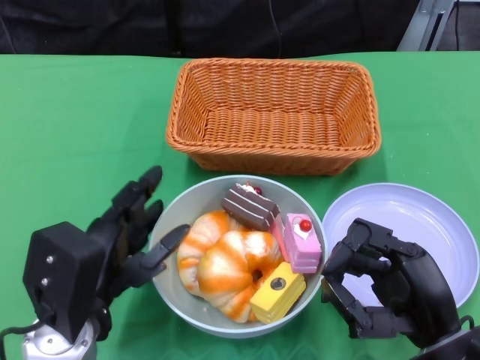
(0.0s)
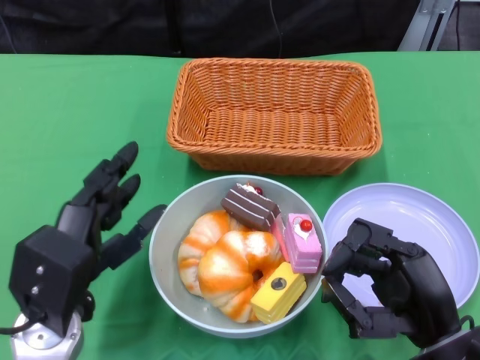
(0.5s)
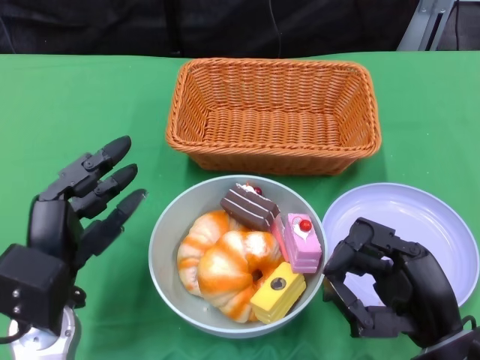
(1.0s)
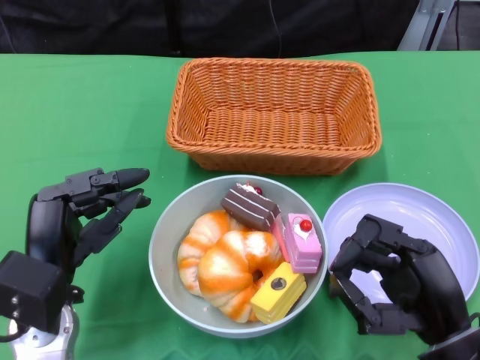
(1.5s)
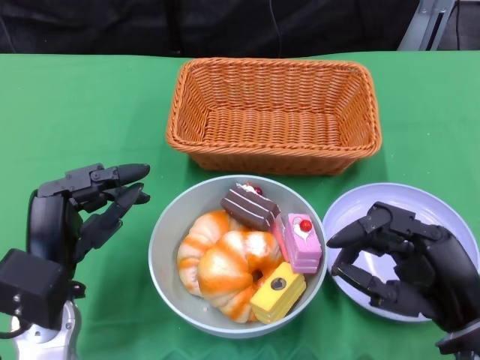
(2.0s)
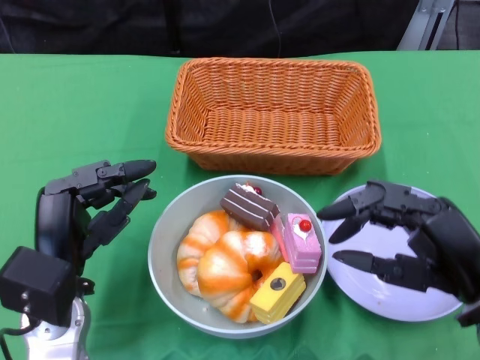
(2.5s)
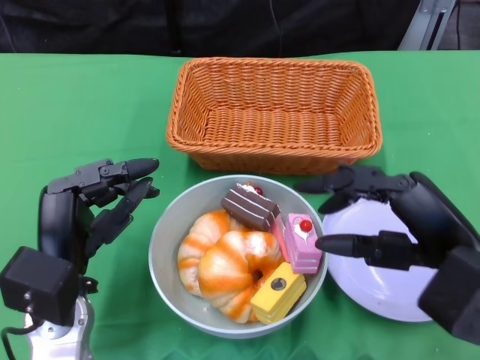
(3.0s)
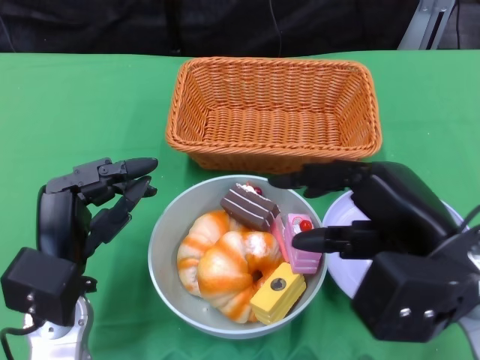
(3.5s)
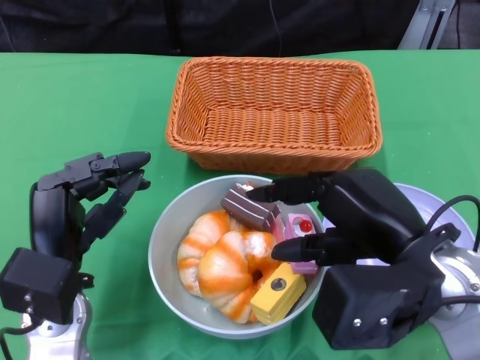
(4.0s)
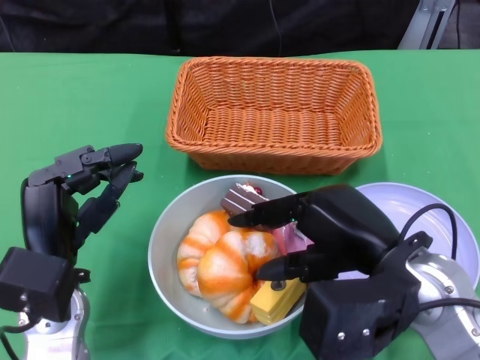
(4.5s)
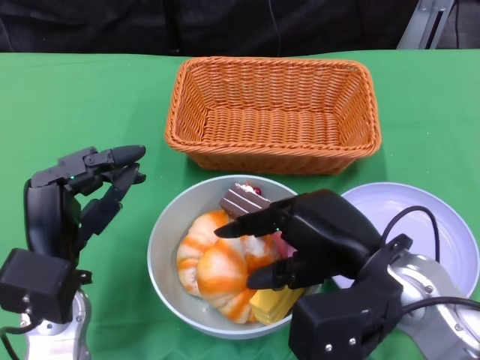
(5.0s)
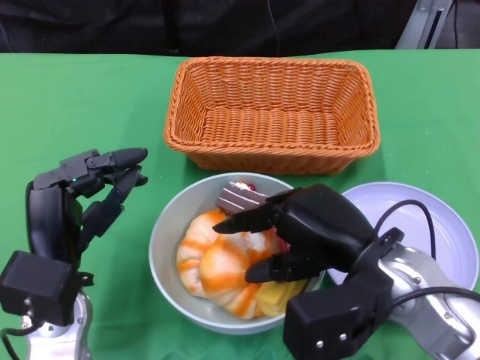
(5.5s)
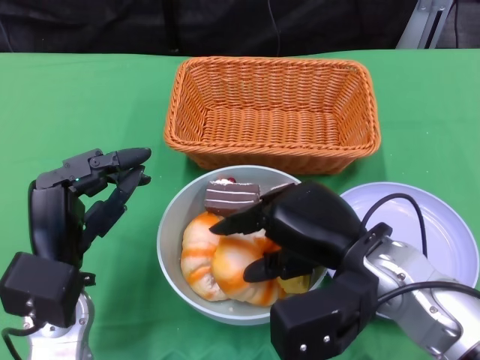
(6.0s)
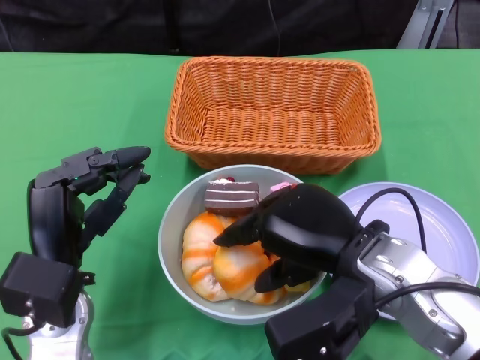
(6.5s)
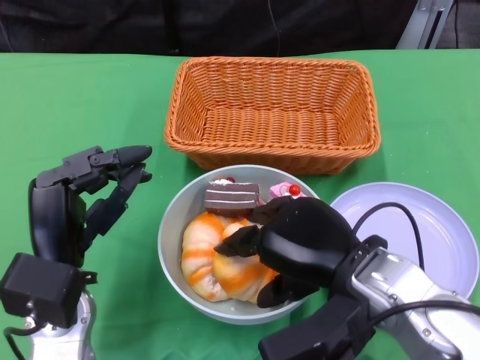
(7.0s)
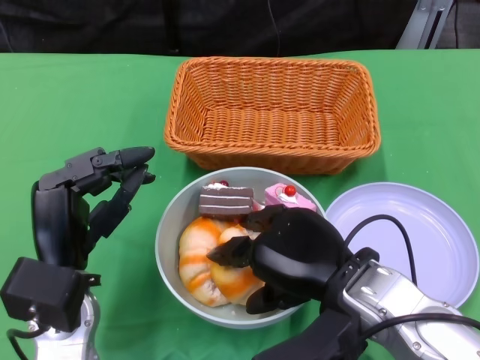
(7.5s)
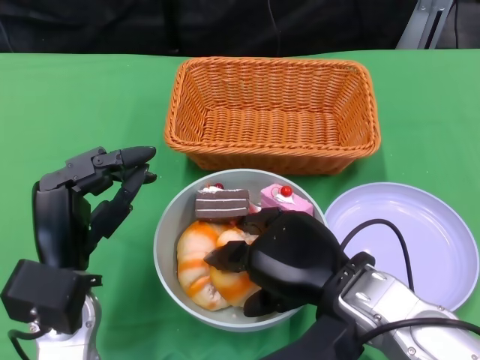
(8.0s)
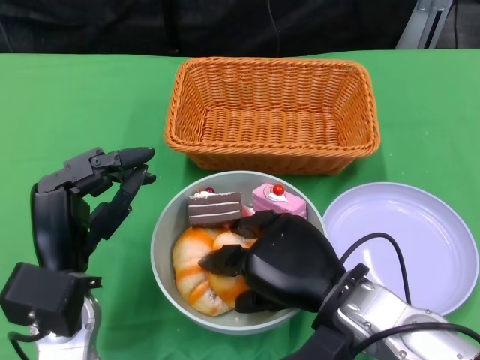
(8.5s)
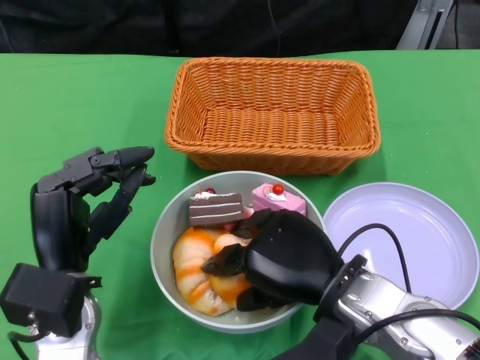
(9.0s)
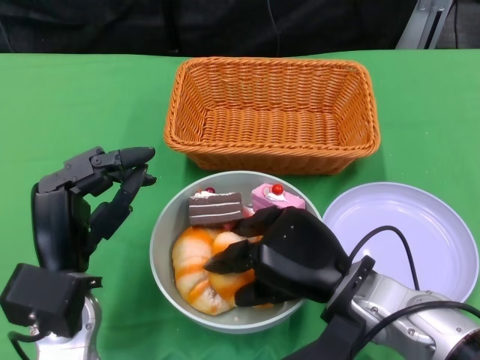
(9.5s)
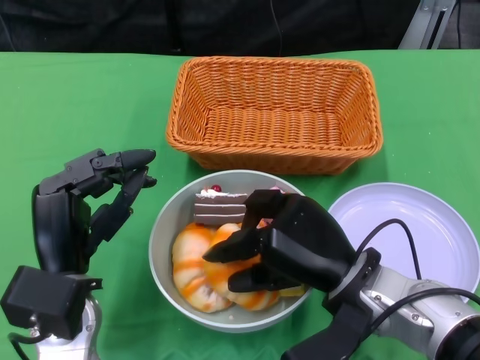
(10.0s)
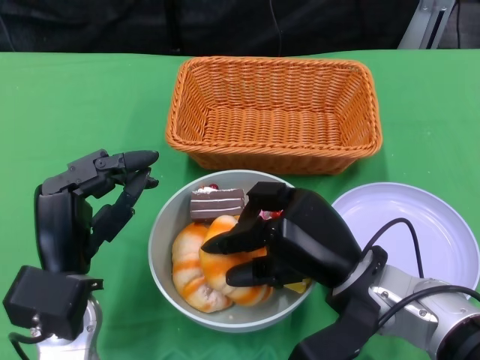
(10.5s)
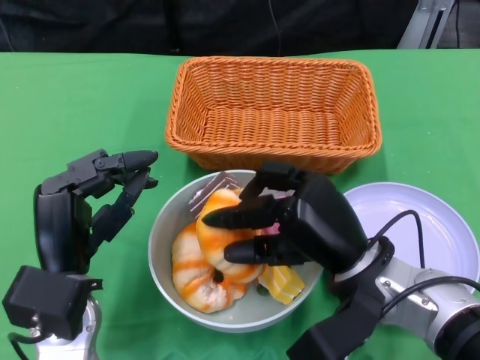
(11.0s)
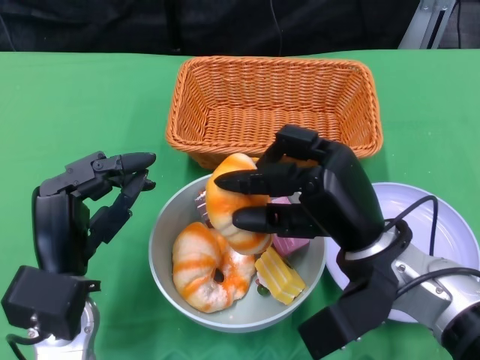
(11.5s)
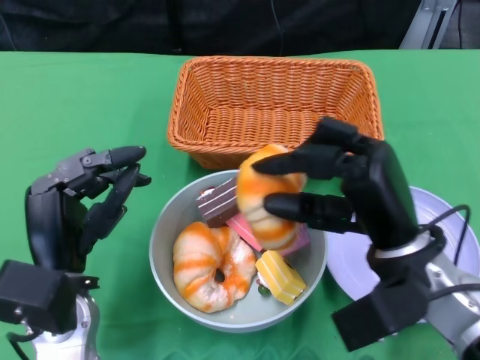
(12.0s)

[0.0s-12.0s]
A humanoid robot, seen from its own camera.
2.0s to 4.0s: The right hand heads upward, covering about 10 cm.
4.0s to 6.0s: The right hand ends up approximately 5 cm from where it was.

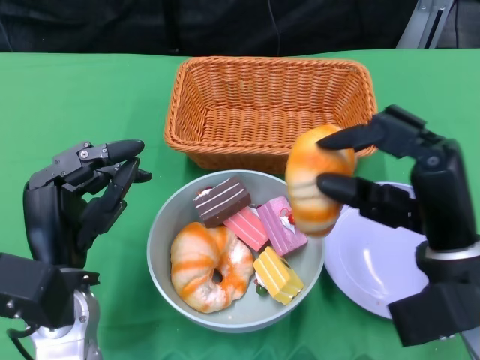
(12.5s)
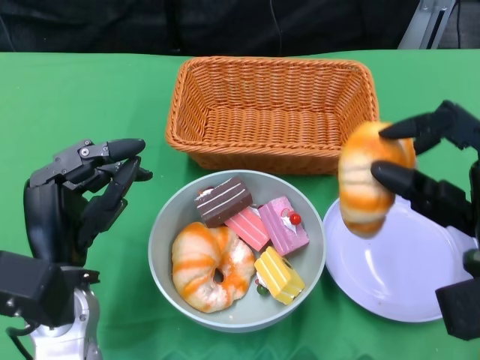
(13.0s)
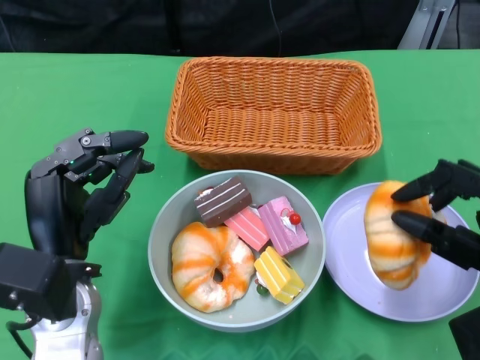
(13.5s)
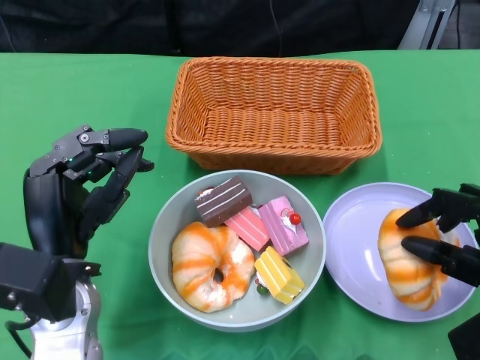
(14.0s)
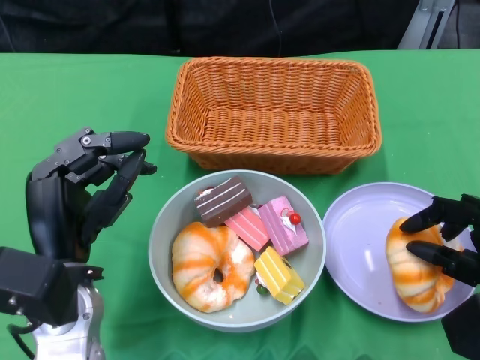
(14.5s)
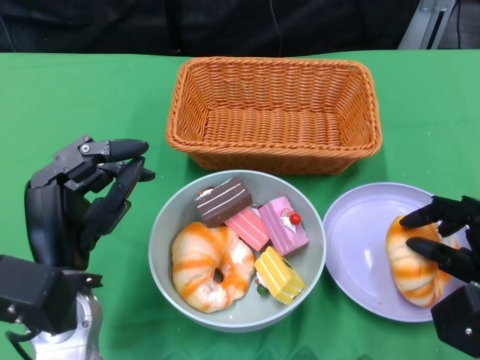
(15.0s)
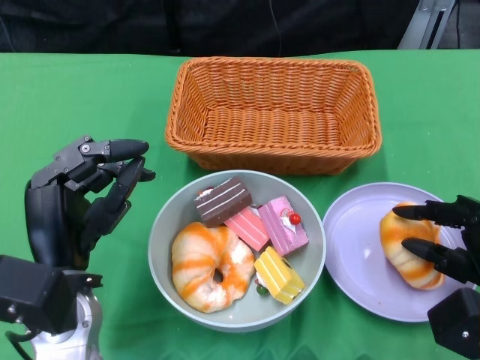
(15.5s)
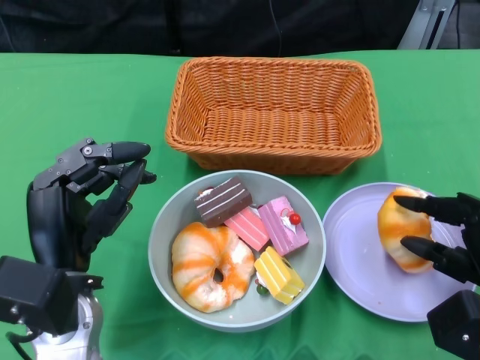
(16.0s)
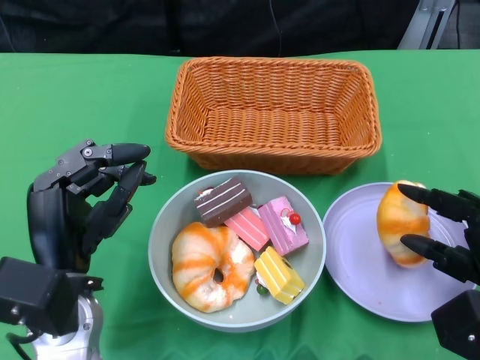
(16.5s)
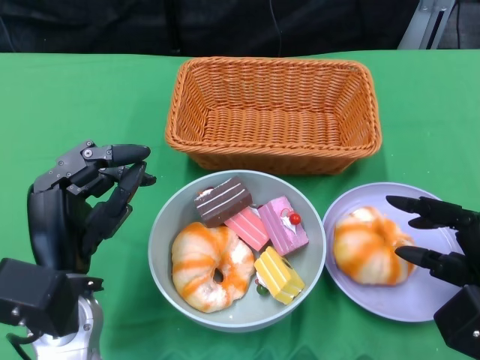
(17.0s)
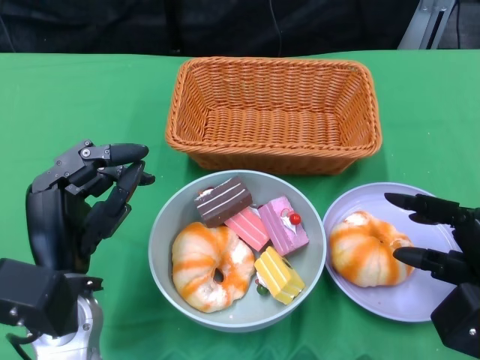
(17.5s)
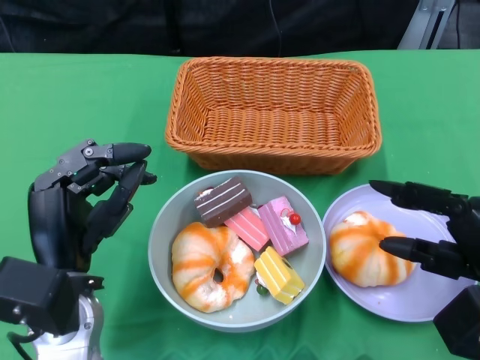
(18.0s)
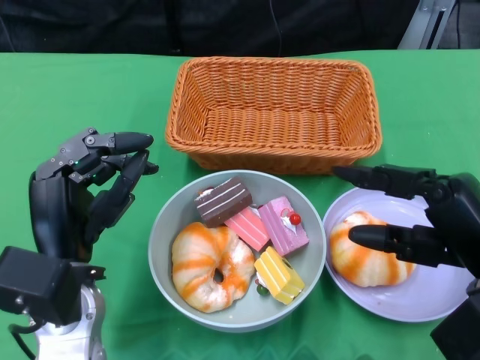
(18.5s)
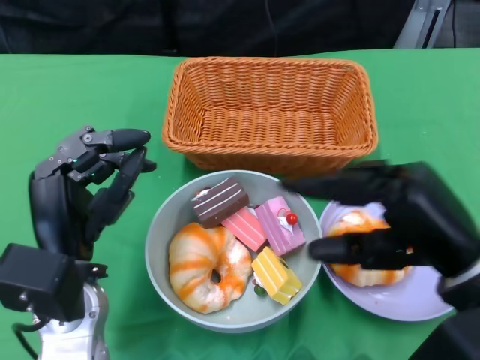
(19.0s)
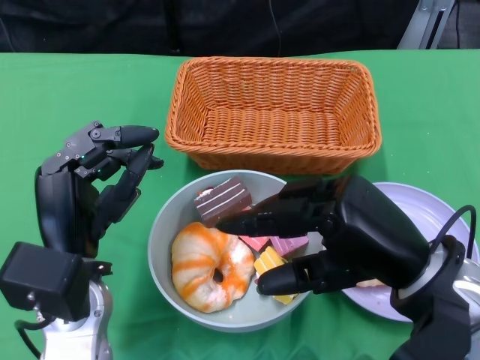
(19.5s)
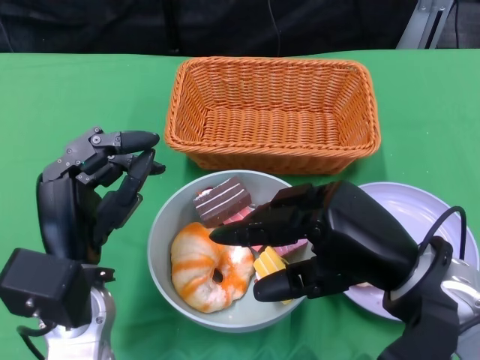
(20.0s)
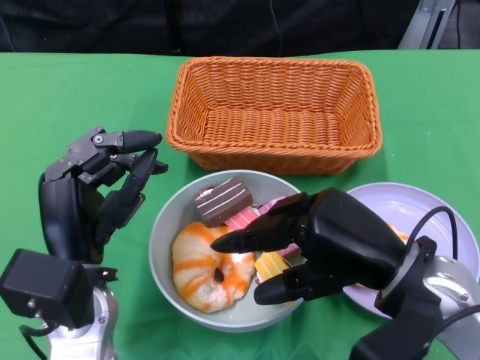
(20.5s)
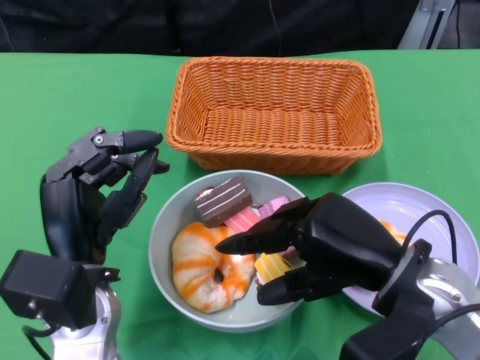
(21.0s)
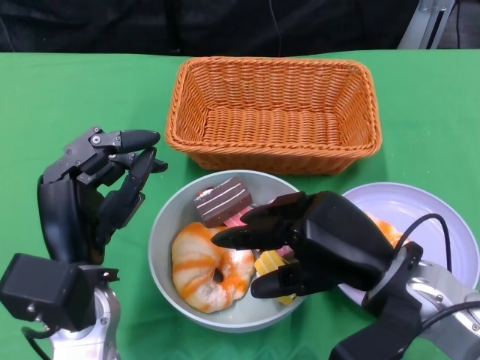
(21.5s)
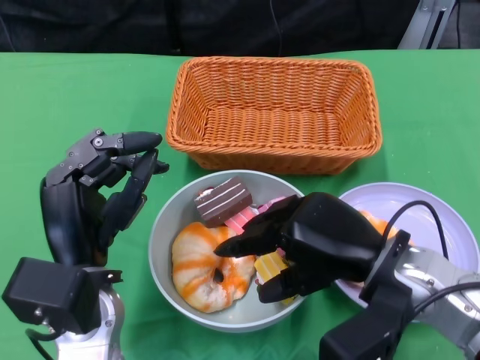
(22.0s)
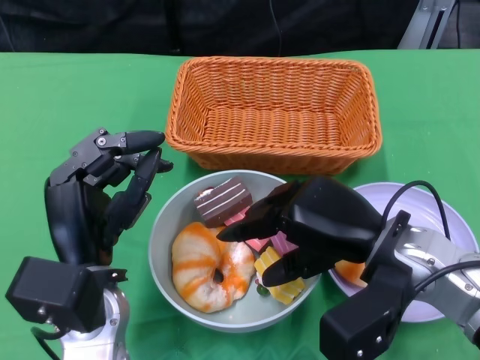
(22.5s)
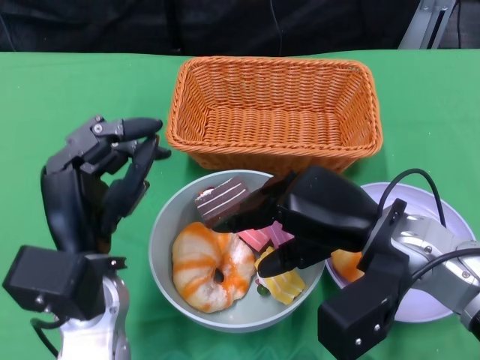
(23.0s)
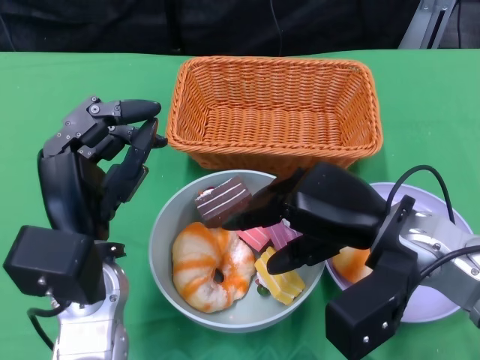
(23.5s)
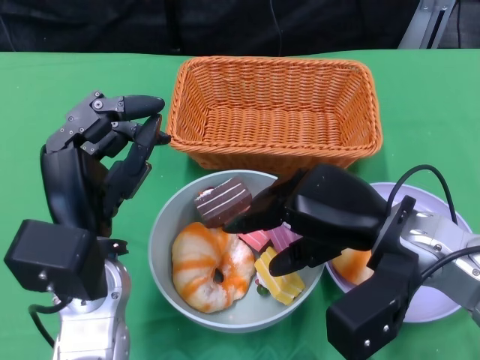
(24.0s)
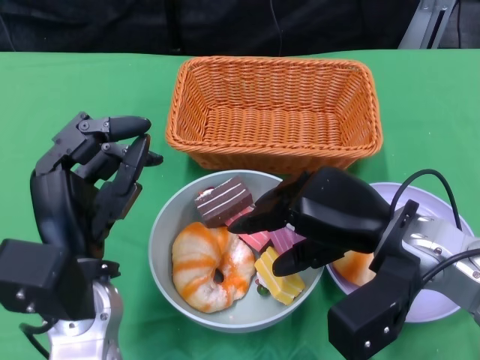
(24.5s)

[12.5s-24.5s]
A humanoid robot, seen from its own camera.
12.5s to 14.5s: The right hand moves to the right and downward, about 10 cm.
14.5s to 16.5s: The hands make only small movements.
16.5s to 18.5s: The right hand shifts some 5 cm upward.
18.5s to 20.5s: The right hand travels to the left by about 10 cm.
22.5s to 24.5s: The hands stay close to where they were, moving slightly.

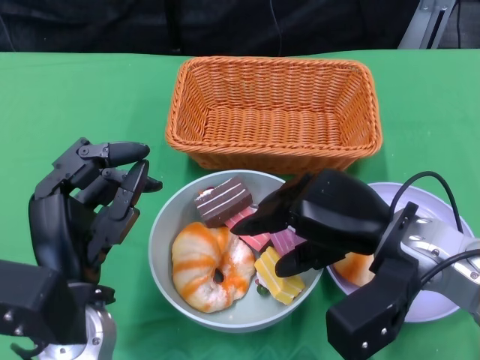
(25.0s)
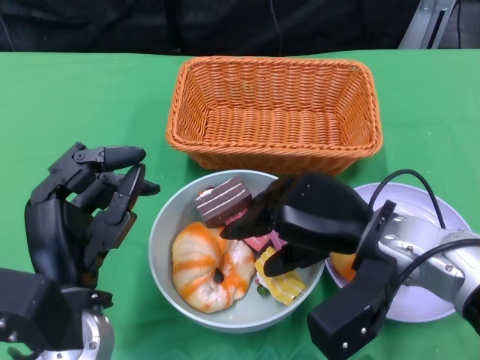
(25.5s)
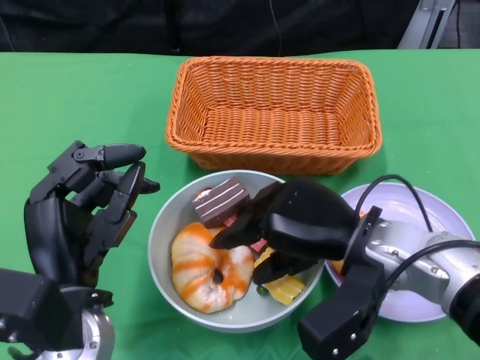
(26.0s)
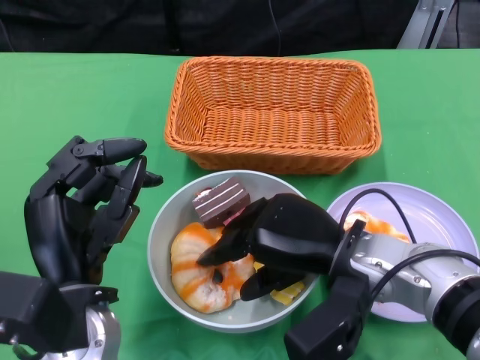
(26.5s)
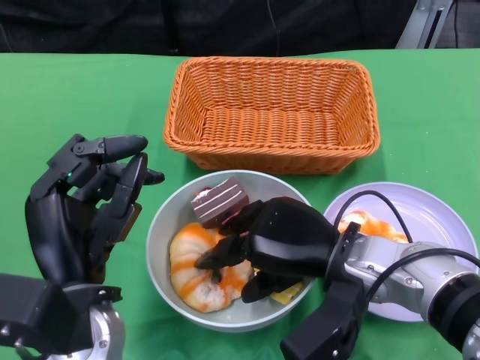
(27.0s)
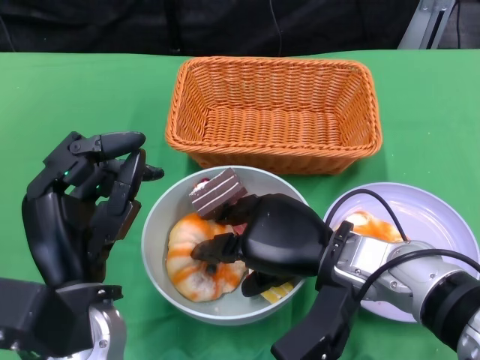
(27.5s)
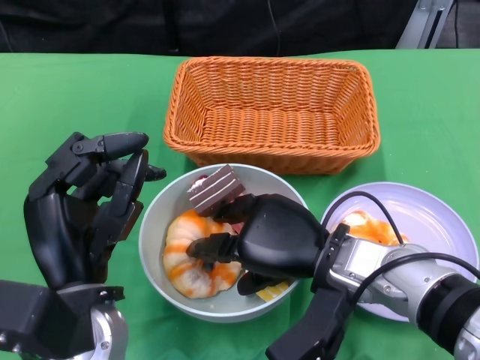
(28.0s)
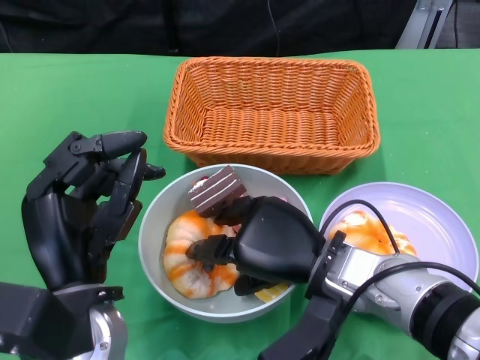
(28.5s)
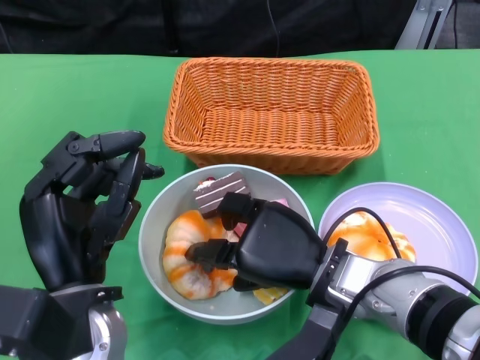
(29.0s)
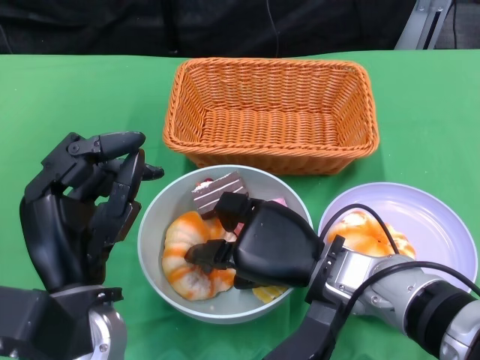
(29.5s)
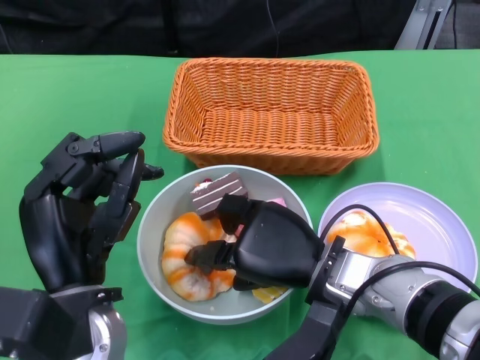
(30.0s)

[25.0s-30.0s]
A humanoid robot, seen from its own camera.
25.0s to 27.5s: The right hand goes roughly 5 cm to the left.
27.5s to 30.0s: The hands make only small movements.
